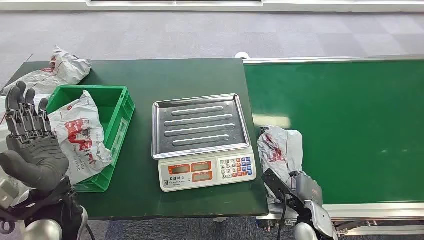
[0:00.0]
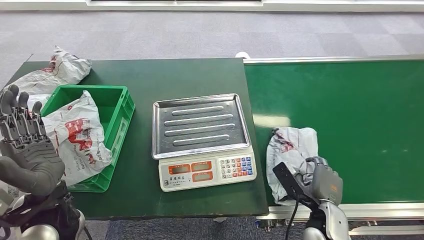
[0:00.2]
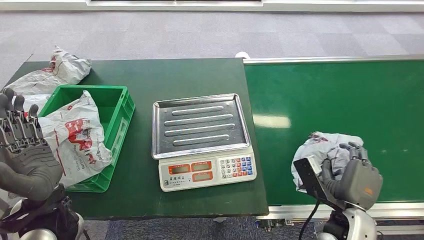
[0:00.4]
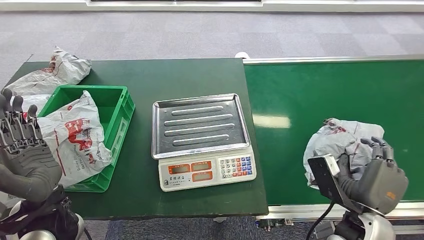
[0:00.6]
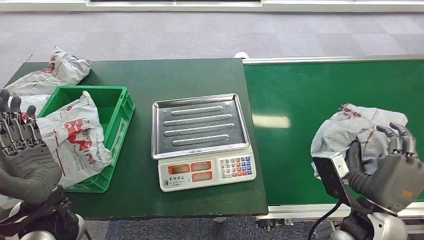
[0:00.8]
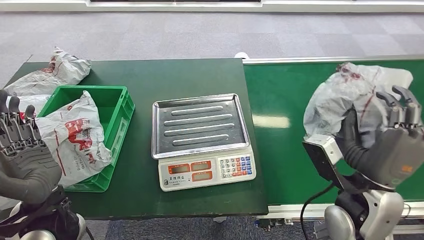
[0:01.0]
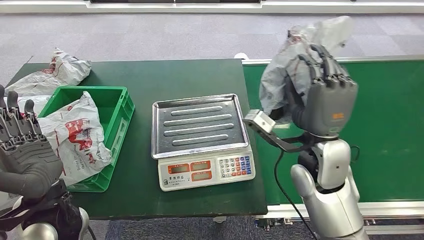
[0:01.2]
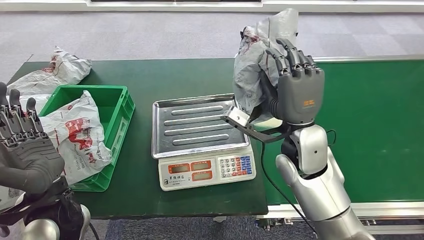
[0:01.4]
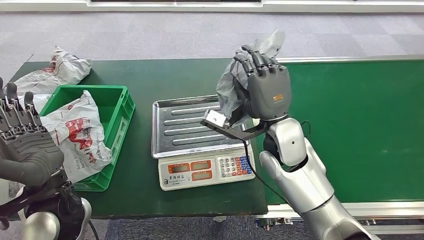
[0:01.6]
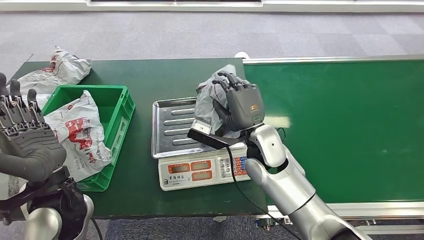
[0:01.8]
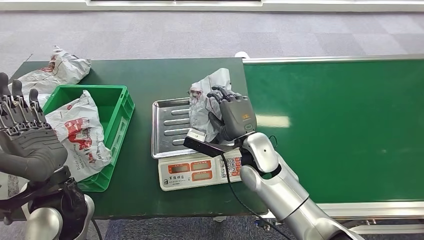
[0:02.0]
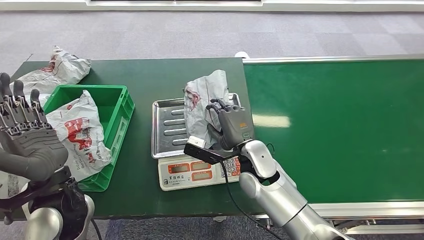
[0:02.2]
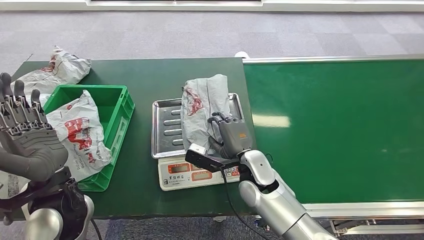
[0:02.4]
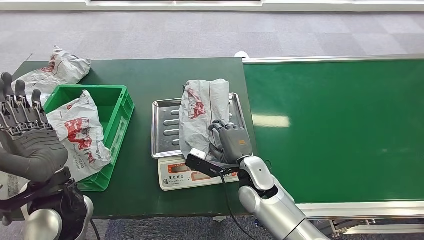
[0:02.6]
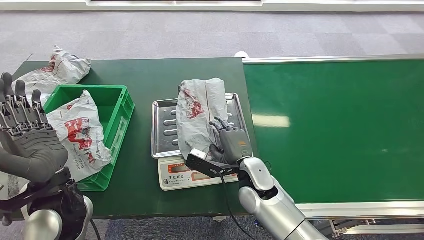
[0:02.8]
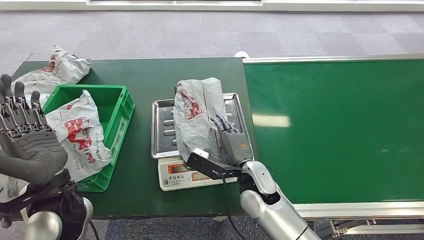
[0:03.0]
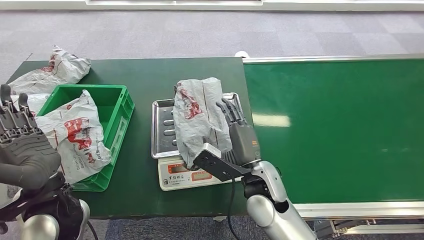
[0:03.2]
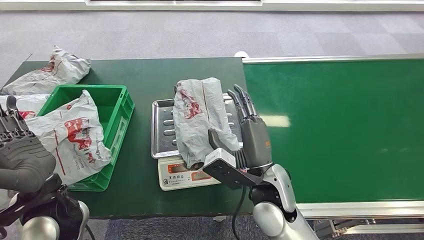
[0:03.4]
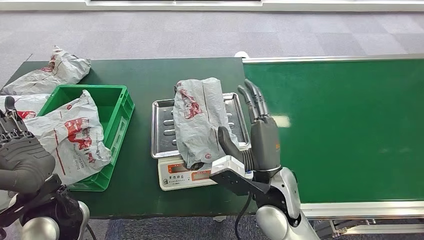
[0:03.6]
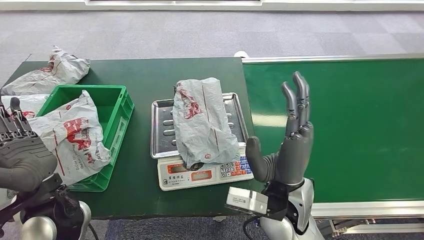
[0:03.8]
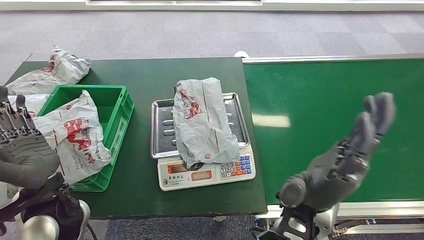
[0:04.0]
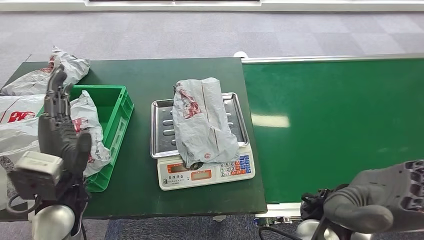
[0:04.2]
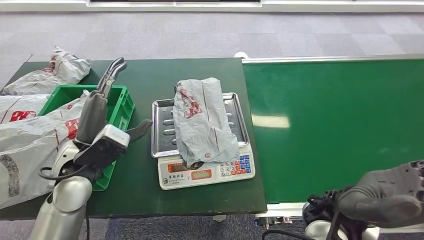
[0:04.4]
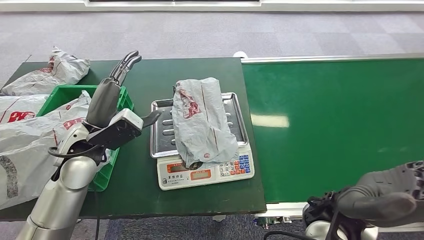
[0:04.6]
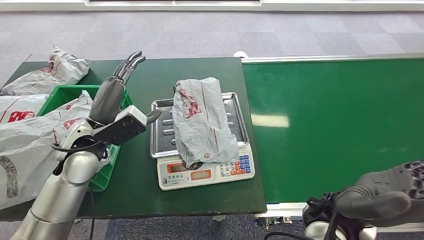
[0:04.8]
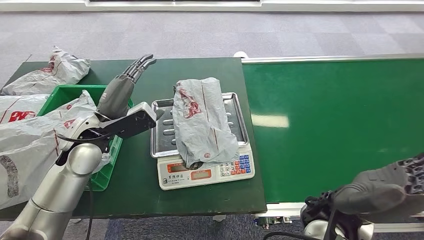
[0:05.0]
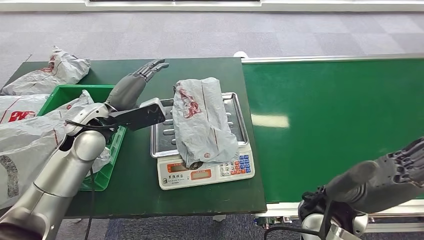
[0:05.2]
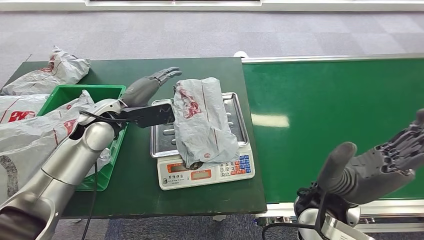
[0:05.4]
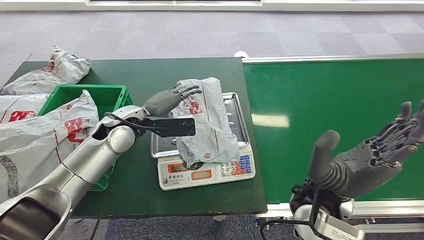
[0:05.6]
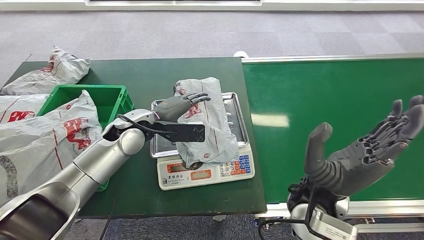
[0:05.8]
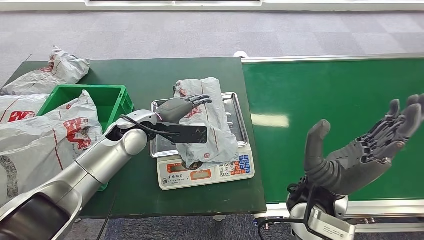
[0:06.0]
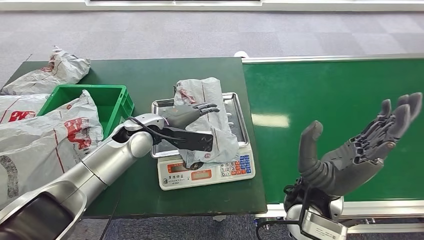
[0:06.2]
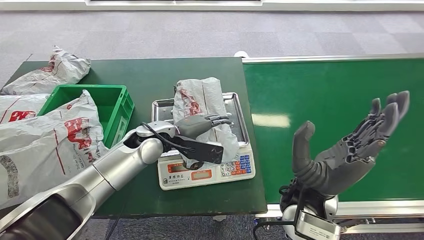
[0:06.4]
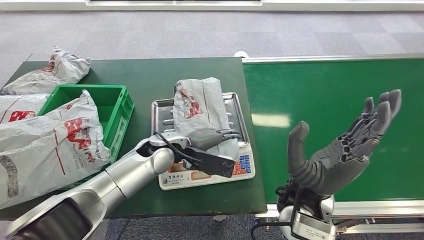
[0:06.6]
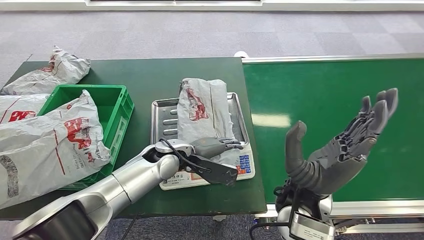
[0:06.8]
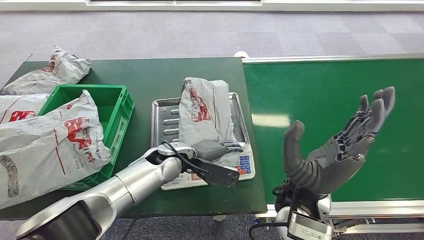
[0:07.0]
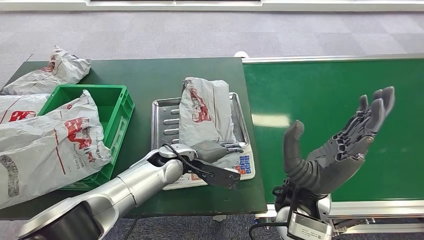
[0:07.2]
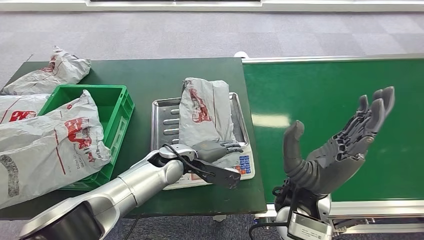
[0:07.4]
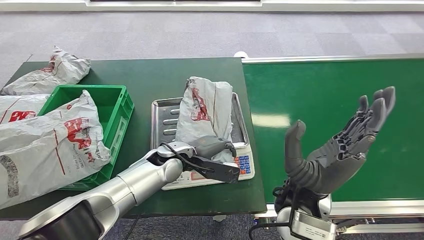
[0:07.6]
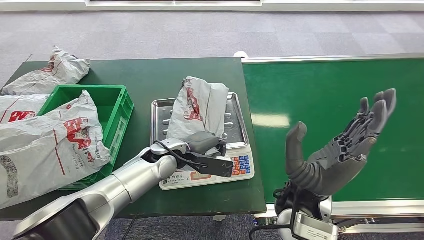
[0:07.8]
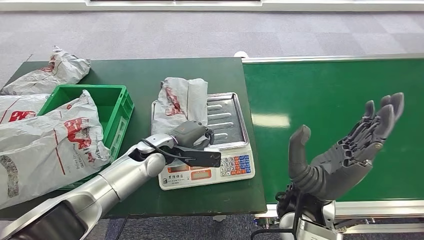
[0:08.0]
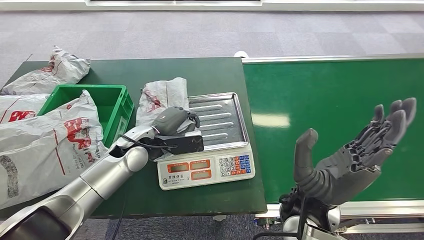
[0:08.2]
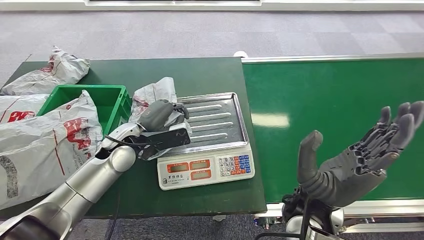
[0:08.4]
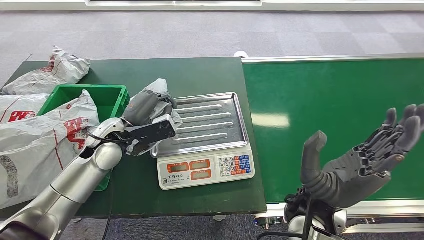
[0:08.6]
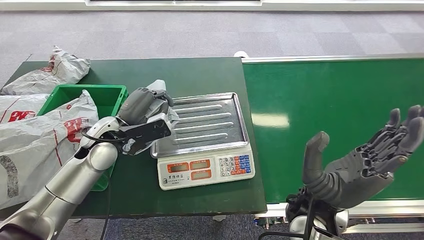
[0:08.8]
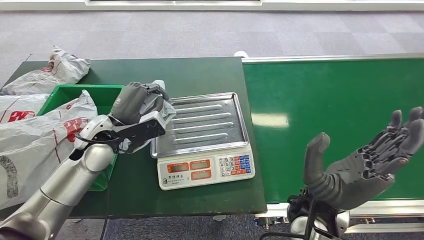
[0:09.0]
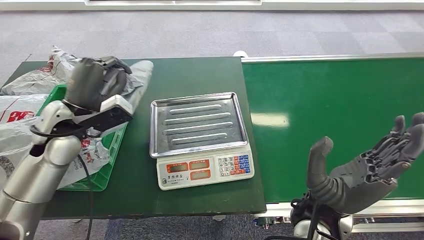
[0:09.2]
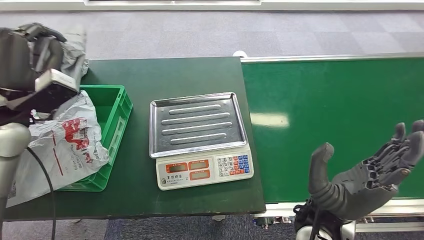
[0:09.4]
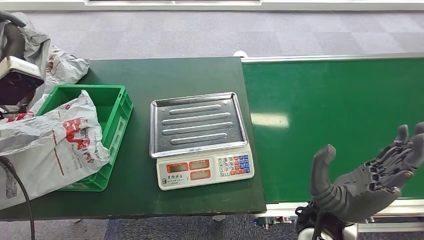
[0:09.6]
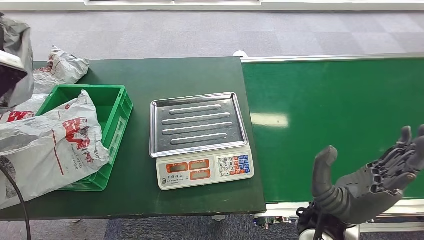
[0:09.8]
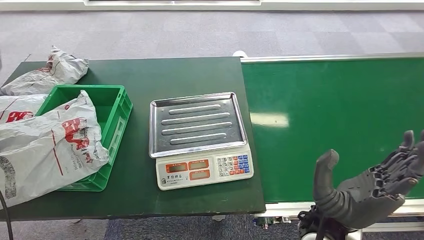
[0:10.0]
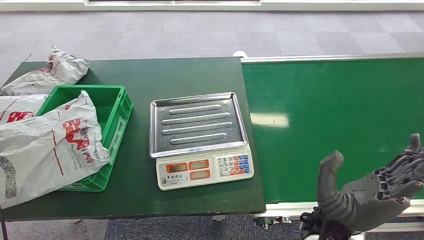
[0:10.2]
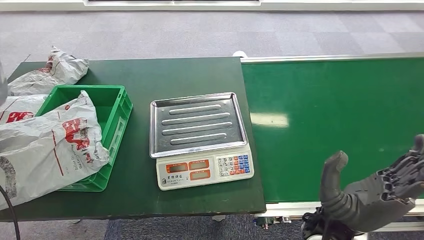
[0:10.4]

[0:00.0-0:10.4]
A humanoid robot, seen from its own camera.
Step, 0:00.0 to 0:00.6: Pick up the package from the conveyor belt.
Step, 0:00.8 to 0:03.8: Place the package onto the inbound machine.
Step, 0:04.0 to 0:09.8: Pick up the package from the inbound machine.
0:09.0 to 0:10.4: The left hand heads to the left and upward, covering some 30 cm.

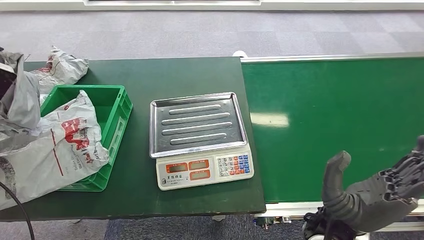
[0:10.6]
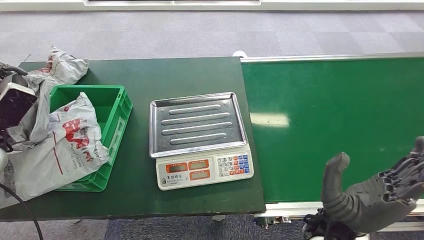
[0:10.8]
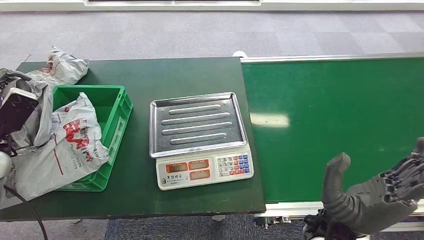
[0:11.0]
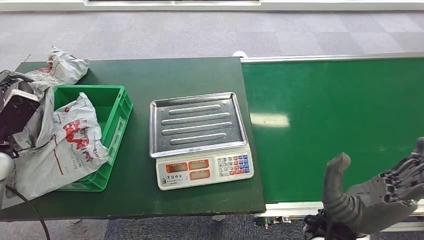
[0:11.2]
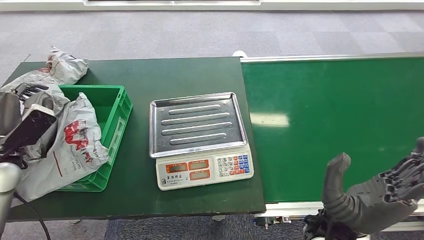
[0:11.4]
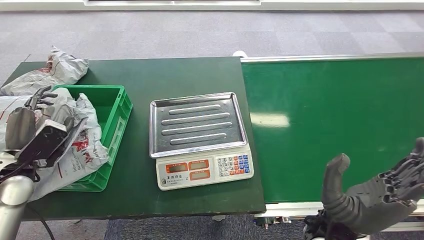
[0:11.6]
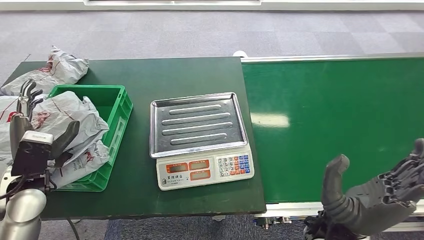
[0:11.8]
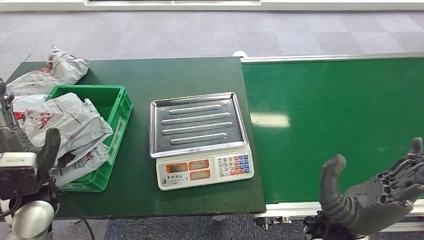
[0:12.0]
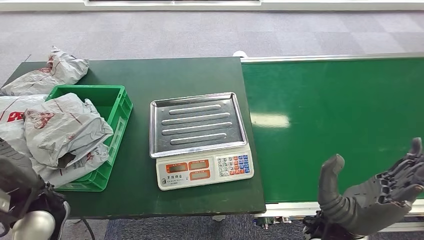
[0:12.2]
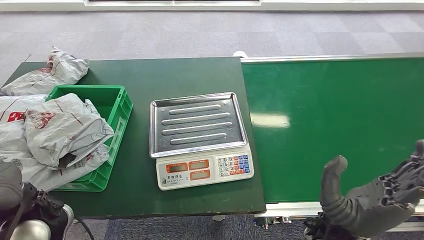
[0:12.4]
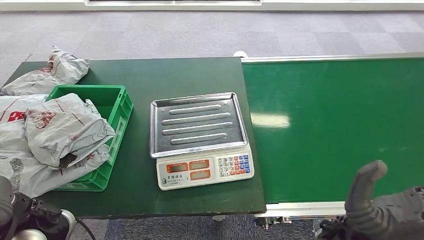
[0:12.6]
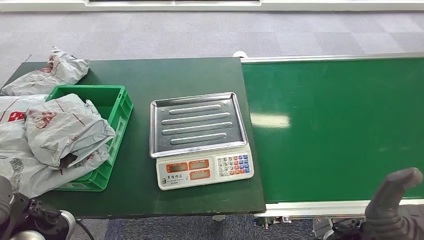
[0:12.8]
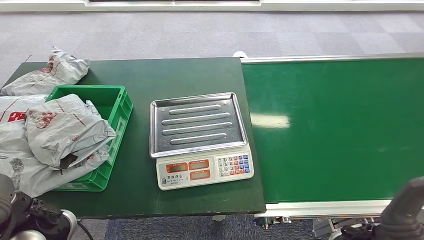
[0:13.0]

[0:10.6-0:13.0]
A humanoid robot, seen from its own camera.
Step, 0:10.6 to 0:13.0: Place the package into the parcel locker.
0:10.6 to 0:11.8: The left hand is displaced downward, to the right and backward by roughly 15 cm.
0:11.8 to 0:13.0: The left hand travels to the right and backward by about 15 cm. The right hand changes place by roughly 5 cm.

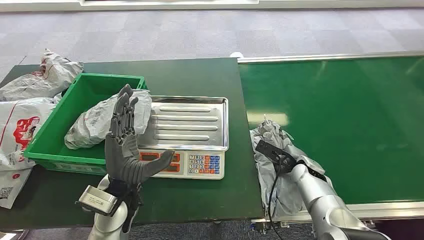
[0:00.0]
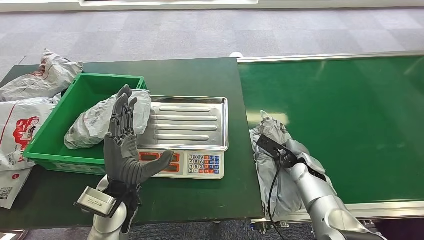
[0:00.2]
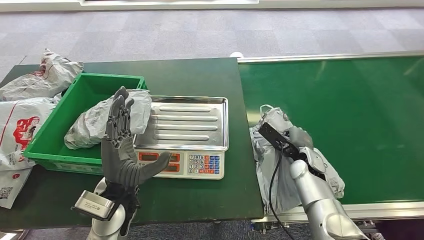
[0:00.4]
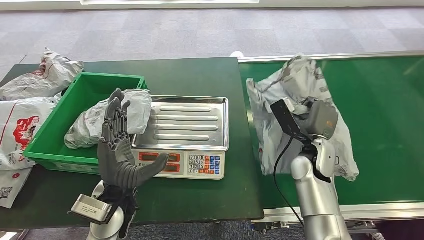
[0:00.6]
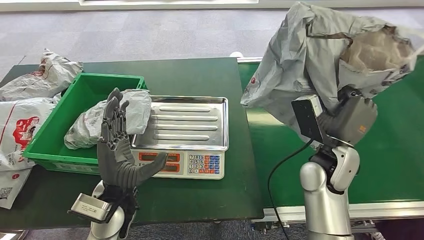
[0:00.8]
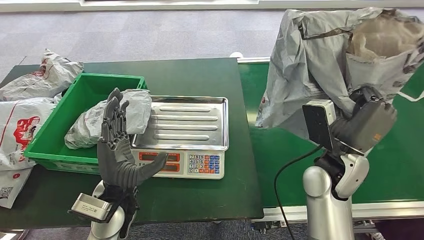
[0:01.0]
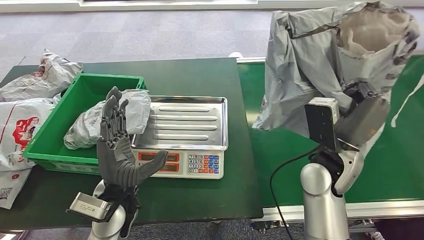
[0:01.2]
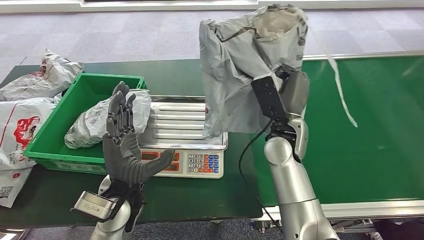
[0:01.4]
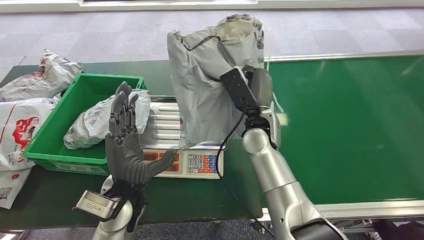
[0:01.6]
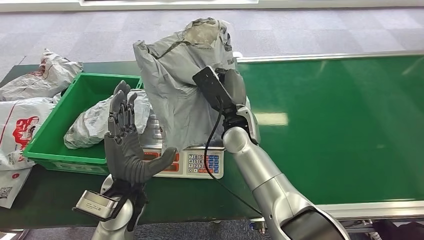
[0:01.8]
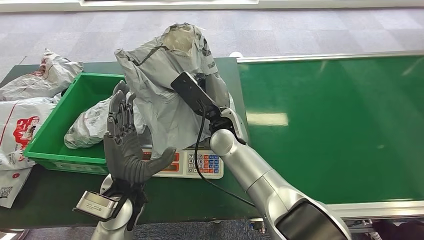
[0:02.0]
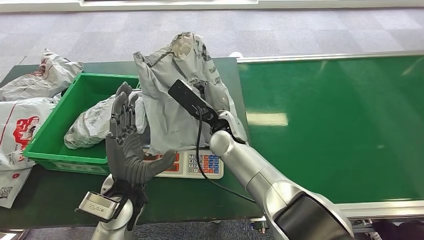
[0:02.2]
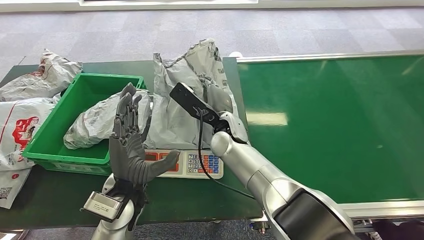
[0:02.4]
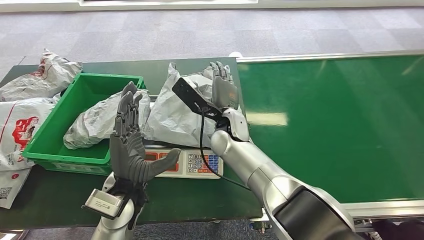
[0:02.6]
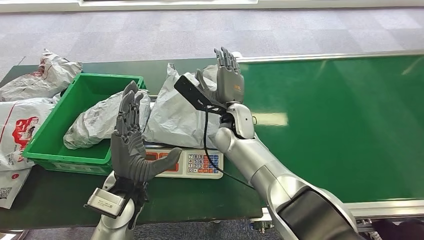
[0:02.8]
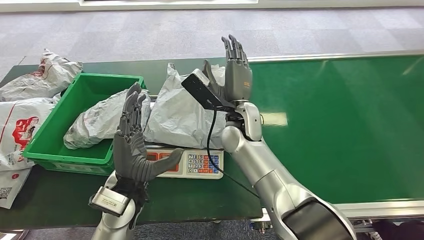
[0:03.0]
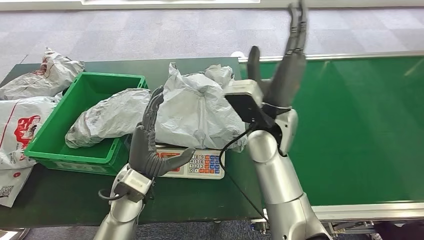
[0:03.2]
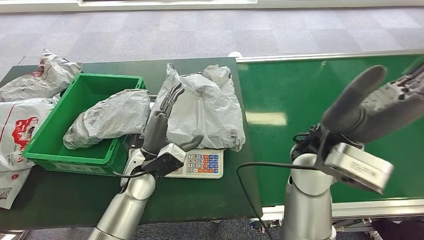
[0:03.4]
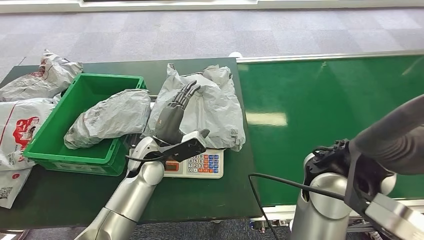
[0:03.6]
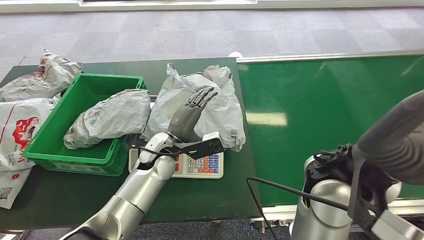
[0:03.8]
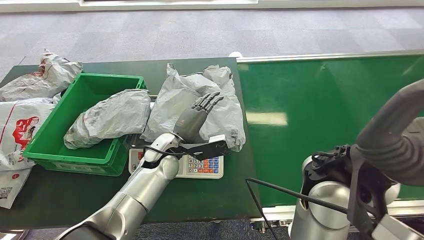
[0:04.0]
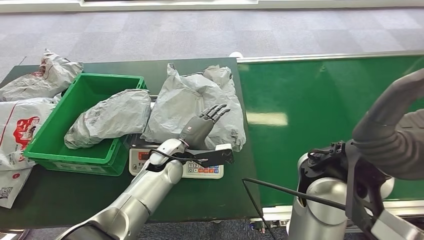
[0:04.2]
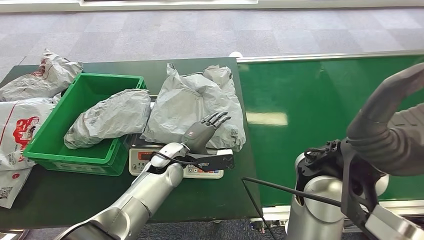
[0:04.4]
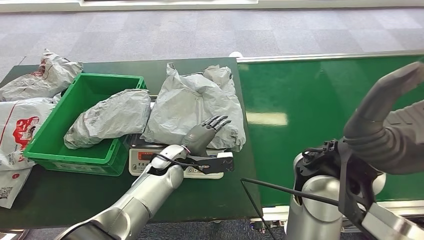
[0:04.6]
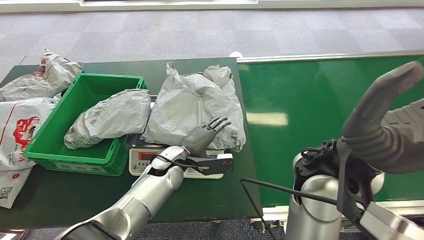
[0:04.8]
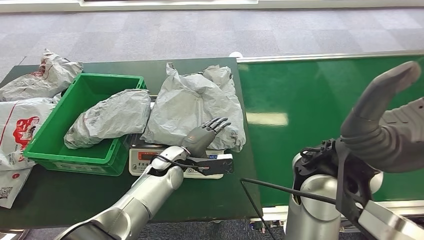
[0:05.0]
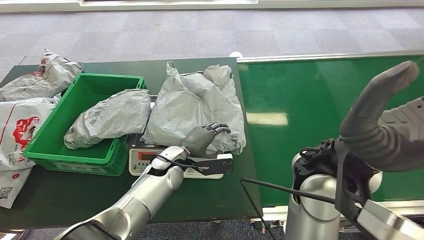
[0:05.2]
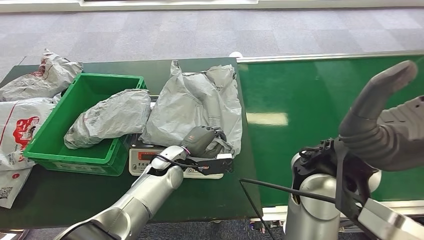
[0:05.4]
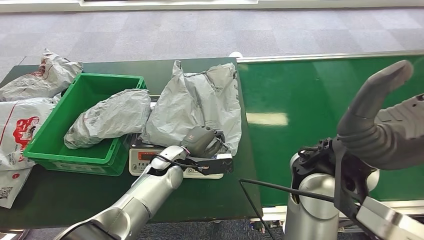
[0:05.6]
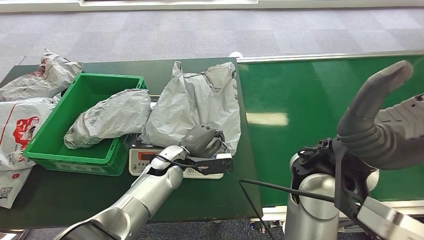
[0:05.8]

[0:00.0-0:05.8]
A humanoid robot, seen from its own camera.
Step, 0:00.0 to 0:01.4: Pick up the package from the conveyor belt.
Step, 0:01.6 to 0:03.6: Place the package onto the inbound machine.
0:04.4 to 0:05.8: The two hands keep their place.
